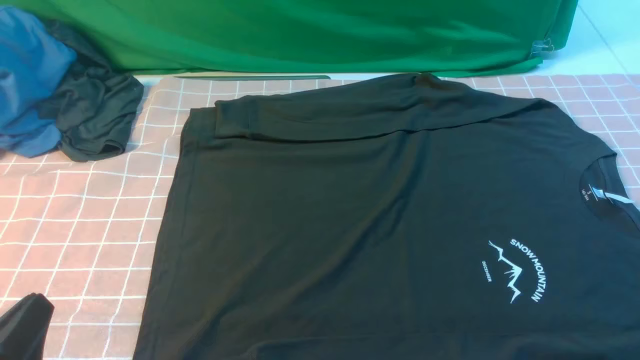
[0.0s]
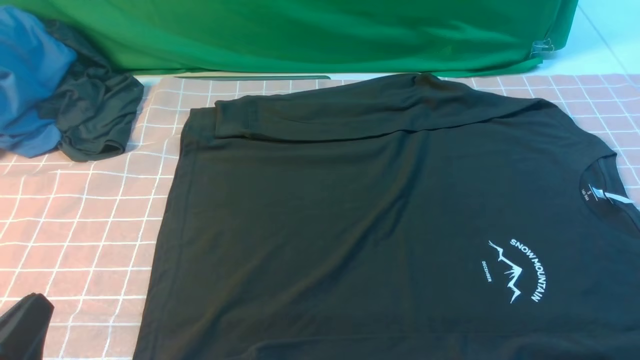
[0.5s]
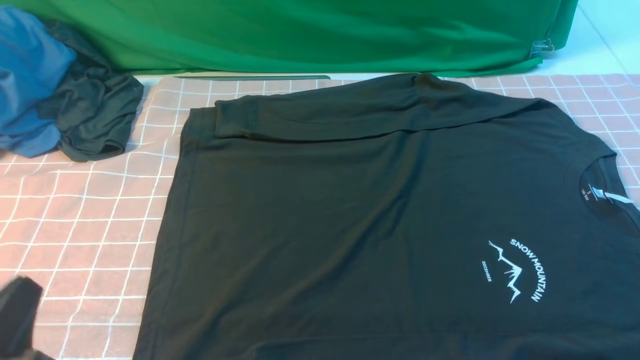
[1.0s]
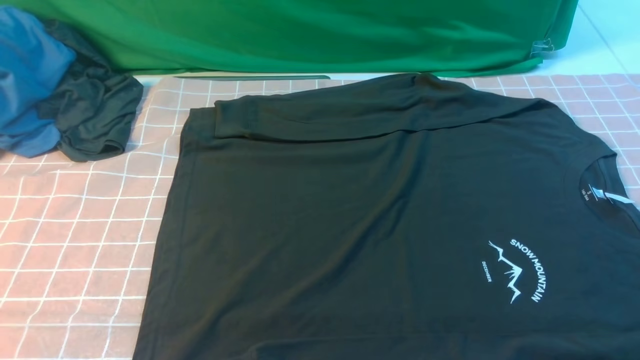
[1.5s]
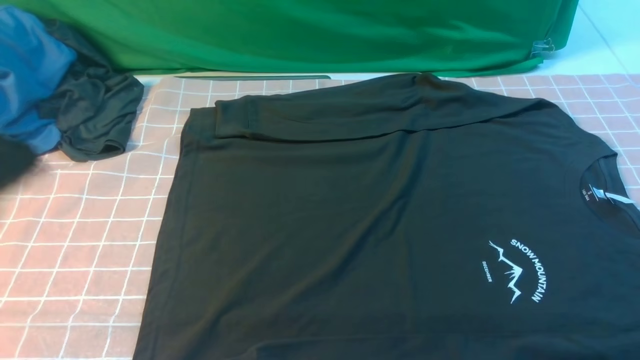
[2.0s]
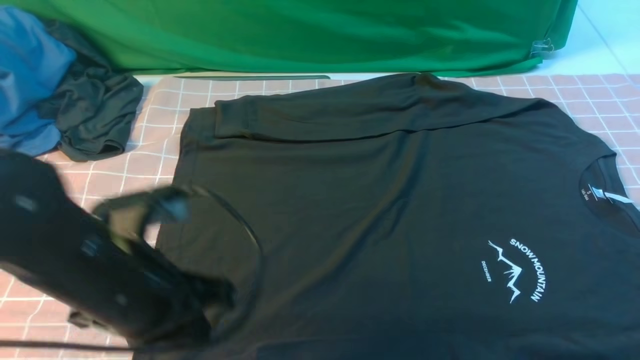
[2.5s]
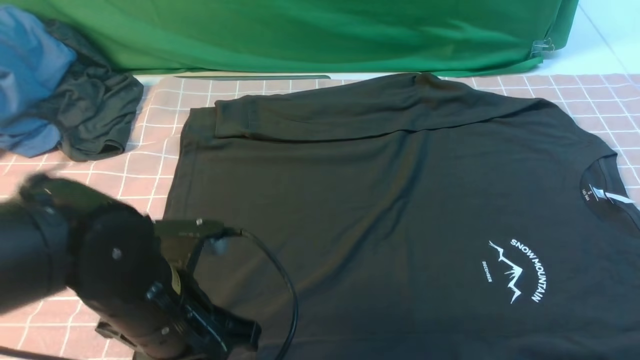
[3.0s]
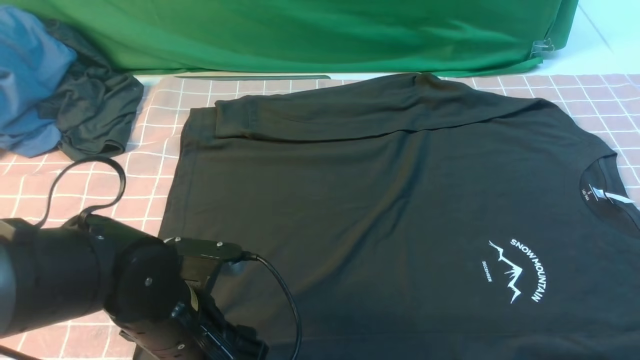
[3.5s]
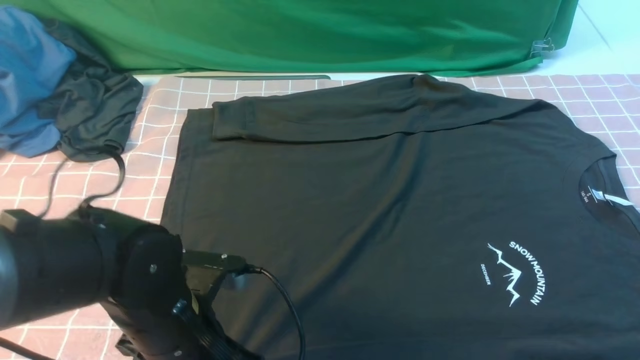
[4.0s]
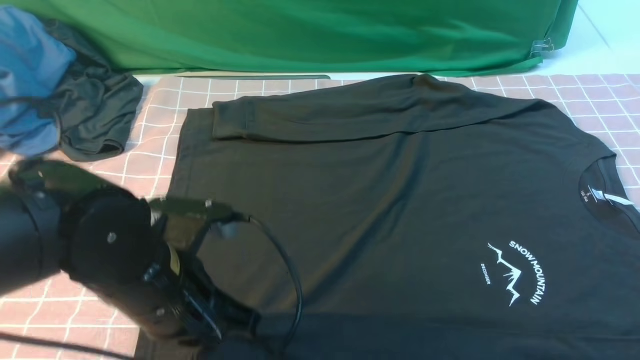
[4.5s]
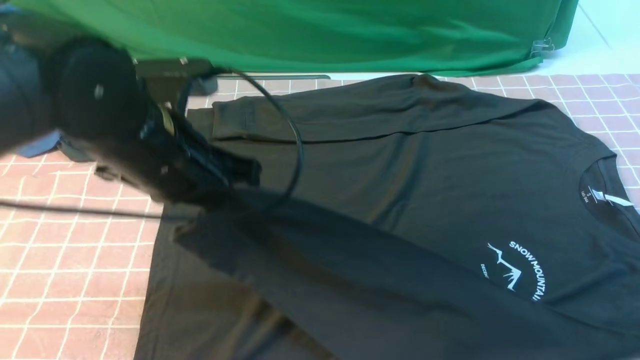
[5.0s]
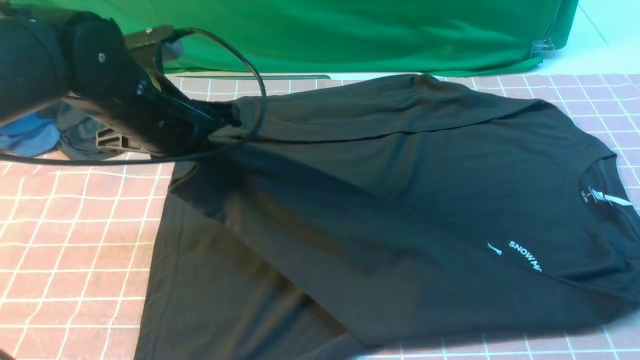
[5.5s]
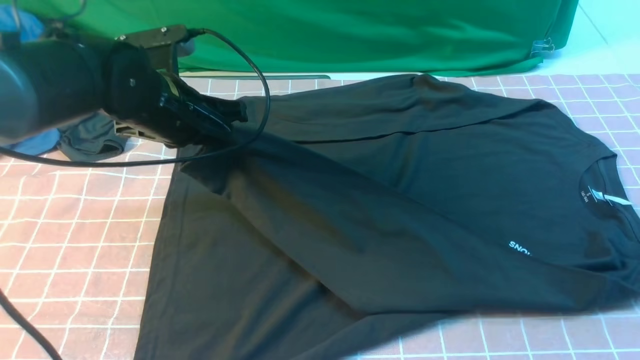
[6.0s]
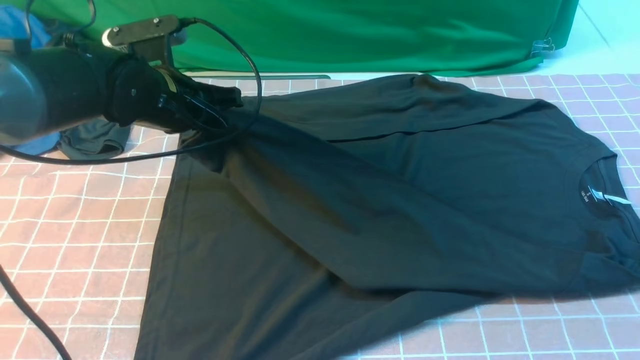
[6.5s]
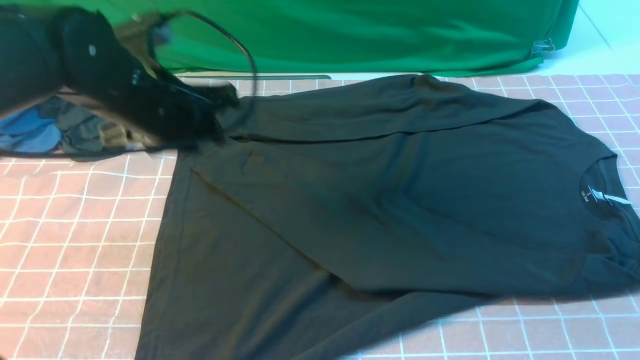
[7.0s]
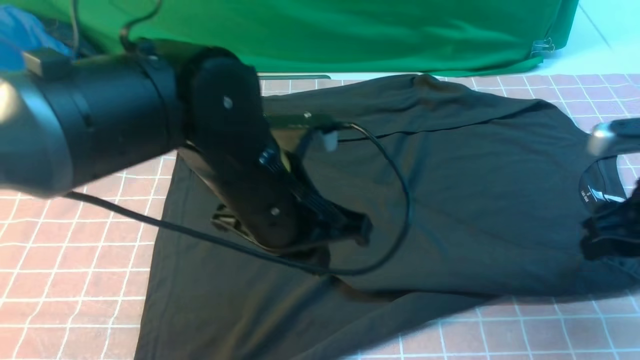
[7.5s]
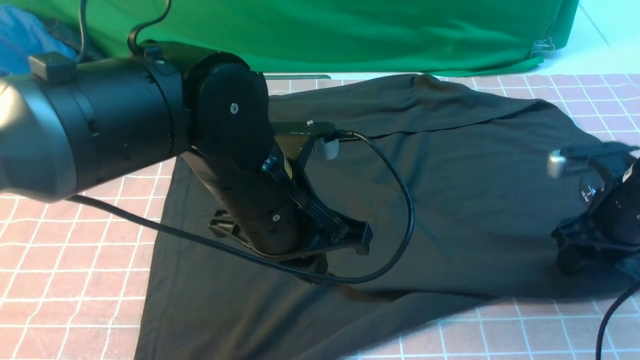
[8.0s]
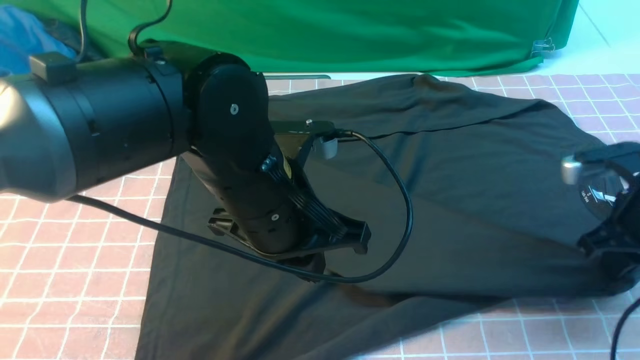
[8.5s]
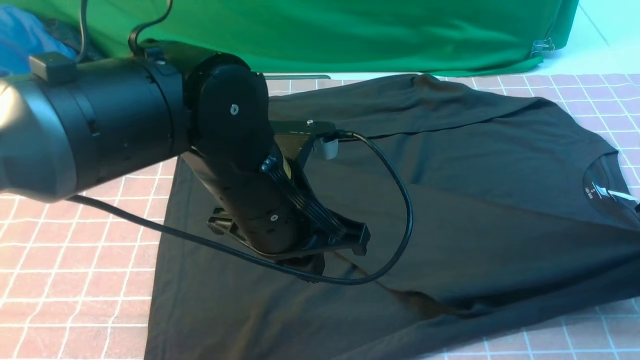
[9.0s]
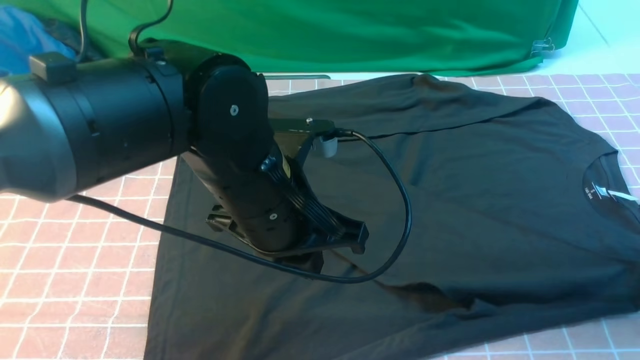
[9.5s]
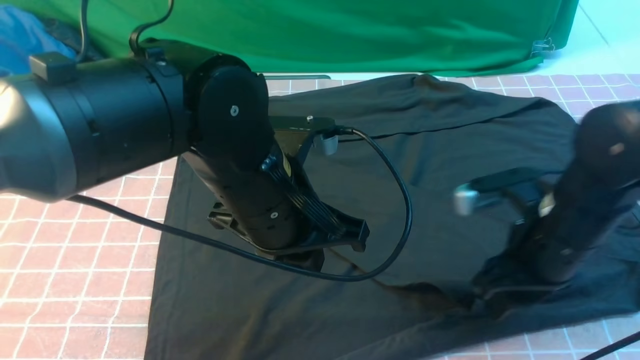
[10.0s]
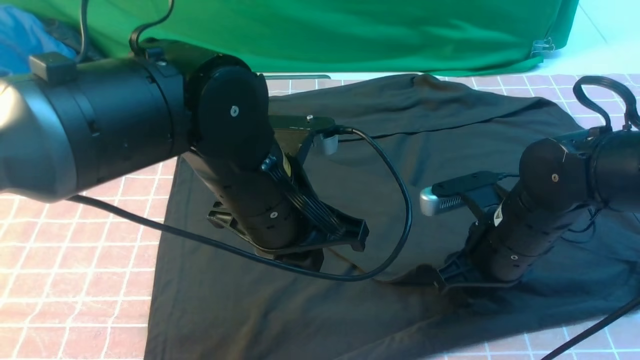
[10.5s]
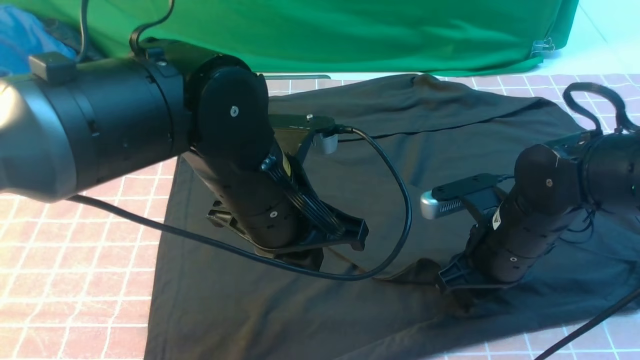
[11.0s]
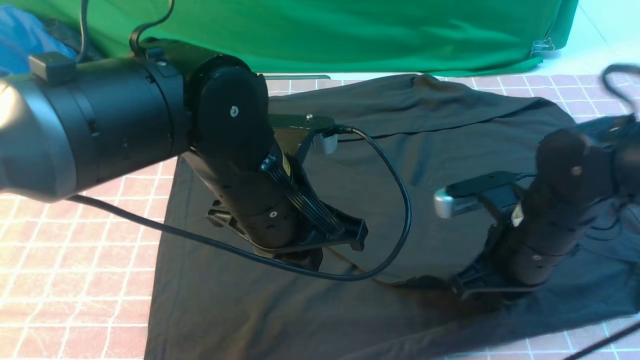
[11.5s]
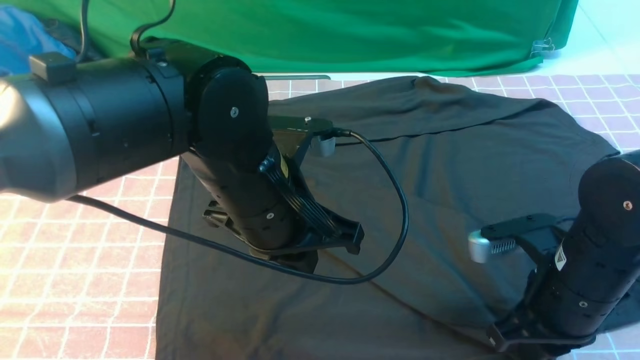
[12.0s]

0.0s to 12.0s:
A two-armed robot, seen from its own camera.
Step, 0.0s to 4.0s: use the left arm to clamp the cuff closest to it.
Step, 4.5s to 6.5s: use the left arm to drag and place the cuff at the centered position on the left edge of the fabric.
0.0s to 2.0s: The left gripper moves upward and forward, roughly 20 cm.
2.0s to 4.0s: The right gripper moves upward and forward, approximately 10 cm, and closes its fingers. The left gripper is displaced downward and to the right by approximately 20 cm, and opens, then closes once more.
4.0s to 6.0s: The left gripper goes some 20 cm forward and upward.
6.0s to 8.0s: The left gripper shifts roughly 20 cm to the right and backward, and opens, then closes once more. The right gripper travels forward and downward by approximately 20 cm, and opens its fingers.
8.0s to 10.0s: The right gripper shifts approximately 10 cm to the left, and closes, then reopens.
10.0s to 12.0s: The right gripper changes place by about 5 cm, and closes.

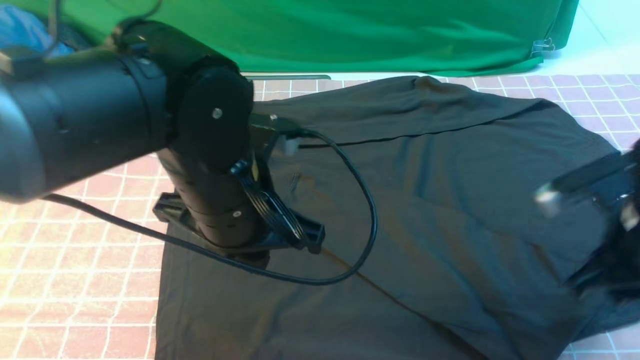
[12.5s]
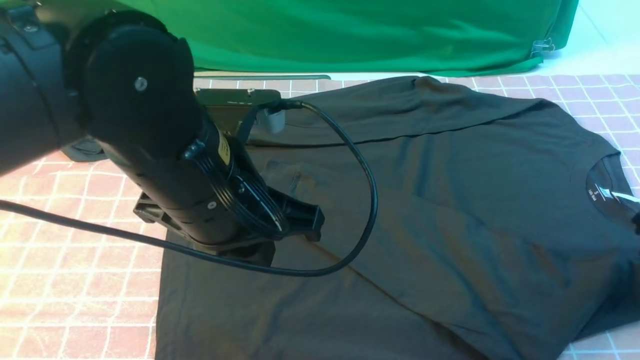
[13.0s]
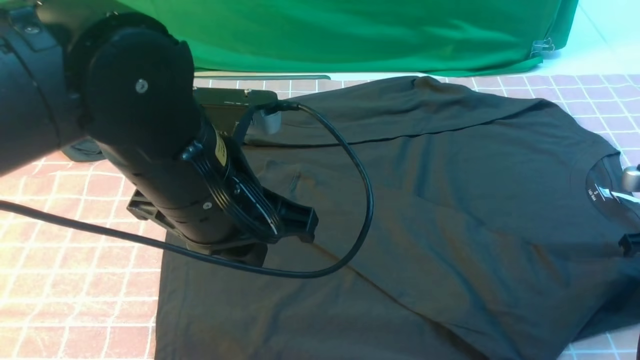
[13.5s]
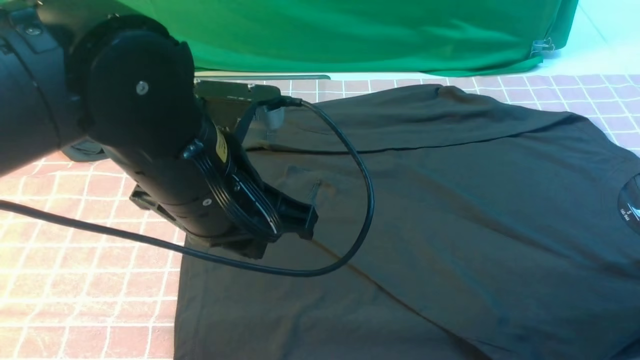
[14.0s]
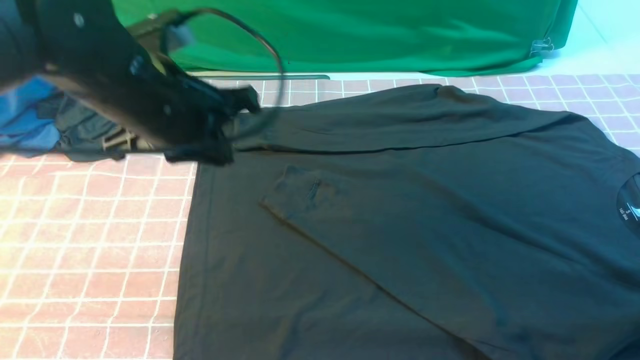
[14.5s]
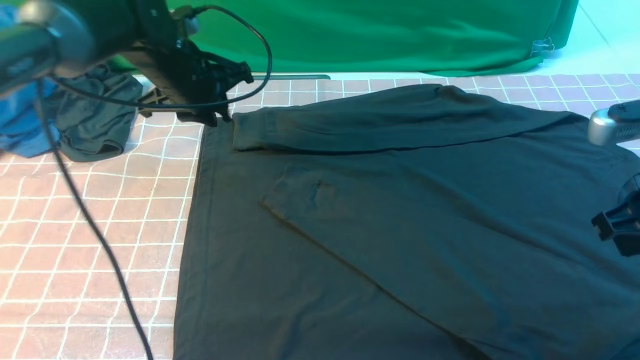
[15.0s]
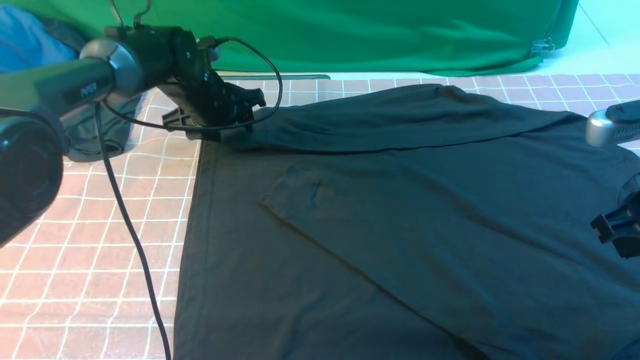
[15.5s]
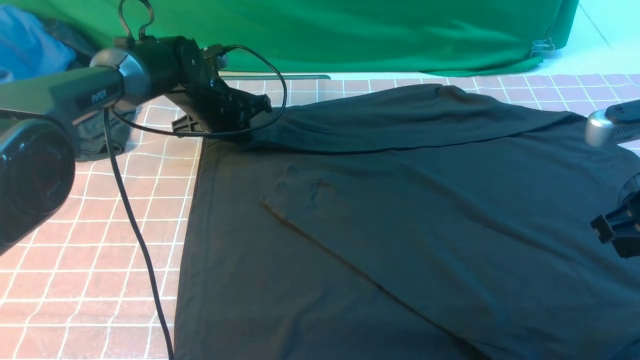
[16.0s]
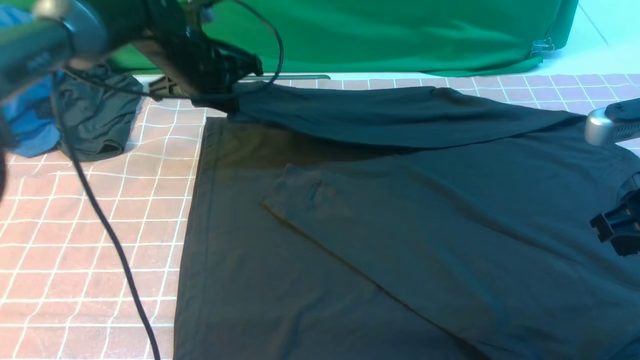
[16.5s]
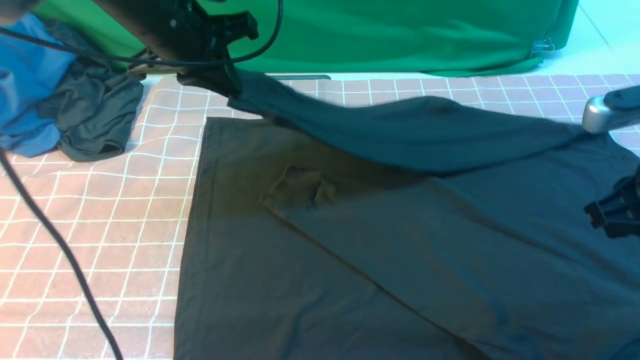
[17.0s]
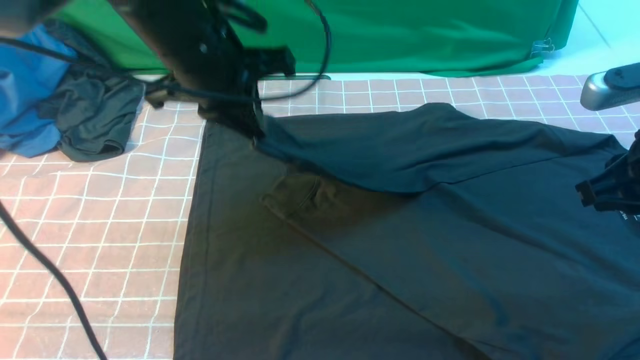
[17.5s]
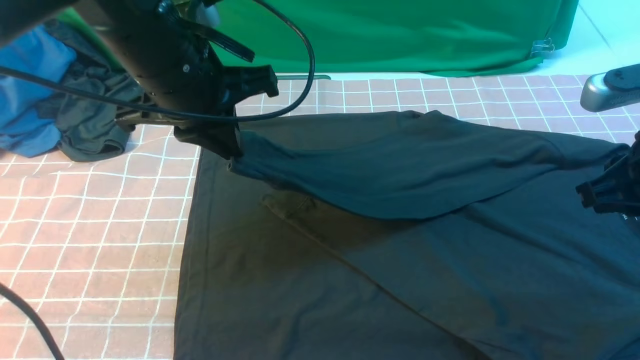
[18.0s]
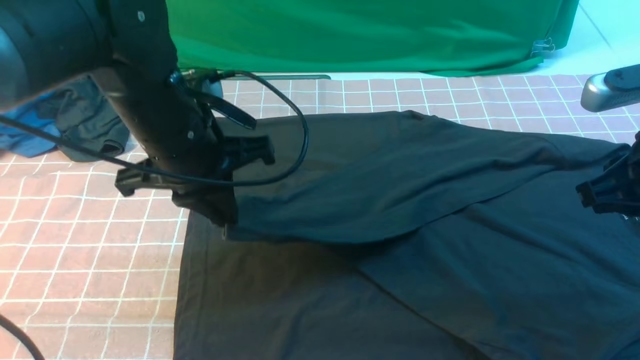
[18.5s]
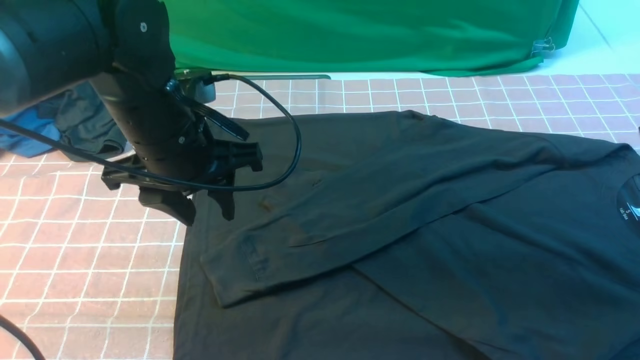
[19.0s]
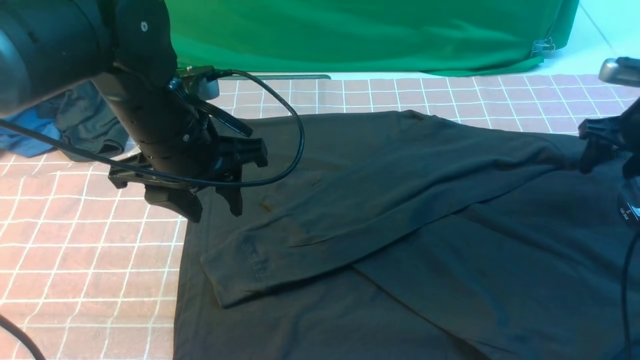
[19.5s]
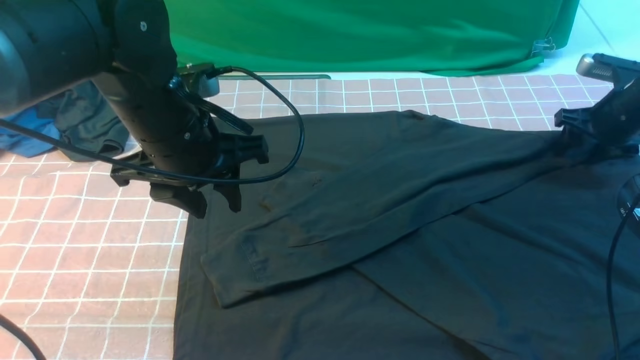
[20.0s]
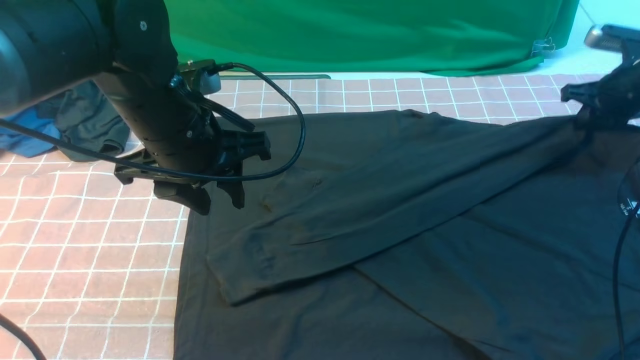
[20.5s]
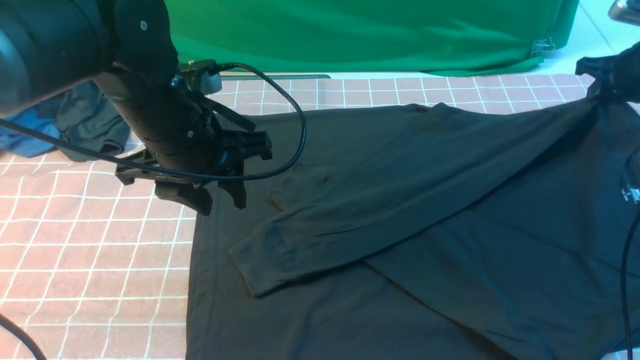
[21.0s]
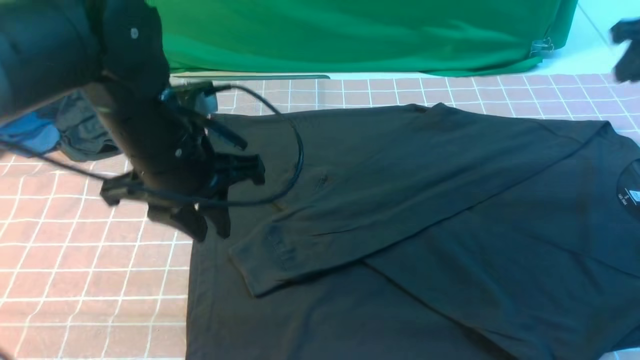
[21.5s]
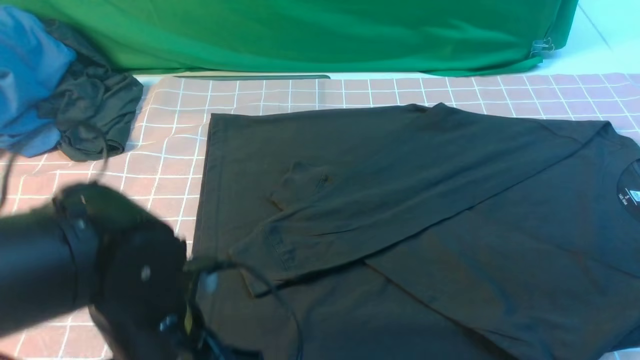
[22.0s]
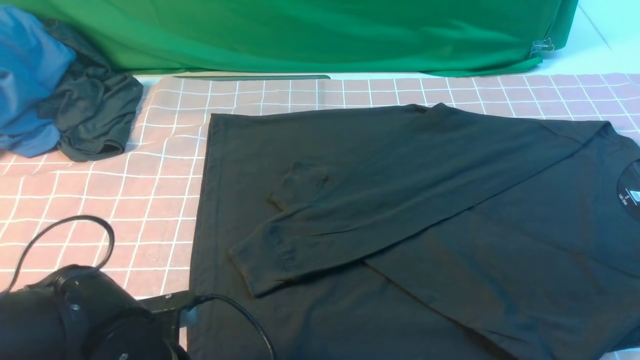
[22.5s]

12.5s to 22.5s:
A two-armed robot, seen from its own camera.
Step, 12.5s to 16.0s: use the left arm to clamp the cuff farthest from it.
Step, 16.5s to 18.5s: use the left arm to drag and drop the cuff onto the cuff closest to the left arm.
12.5s to 14.5s: The right gripper moves to the right, roughly 10 cm. The left gripper is displaced forward and to the left by some 10 cm.
14.5s to 16.5s: The left gripper travels forward and downward by some 15 cm, and opens, then closes once more. The right gripper moves to the left and upward, approximately 10 cm, and closes up.
16.5s to 18.5s: The left gripper shifts approximately 15 cm backward.
18.5s to 20.5s: The left gripper opens its fingers; the right gripper goes some 25 cm forward, to the right and downward, and opens, then closes again.
20.5s to 22.5s: The right gripper is displaced upward and backward by approximately 25 cm, and opens, then closes once more. Meanwhile the left gripper heads backward and downward, covering about 20 cm, and closes, then opens again.
